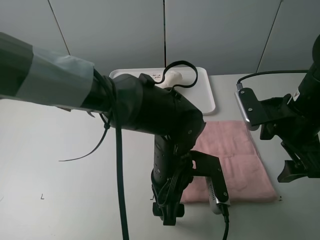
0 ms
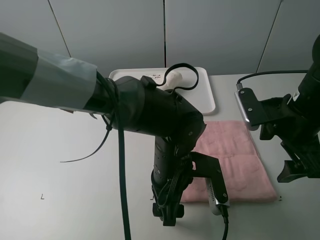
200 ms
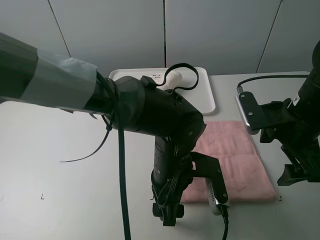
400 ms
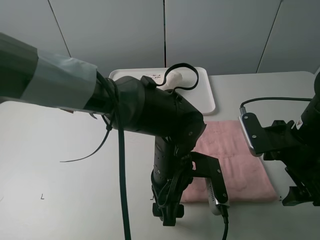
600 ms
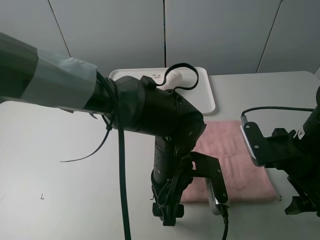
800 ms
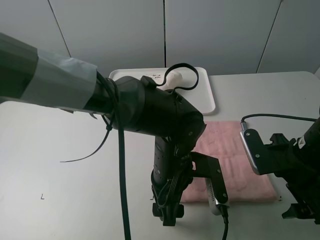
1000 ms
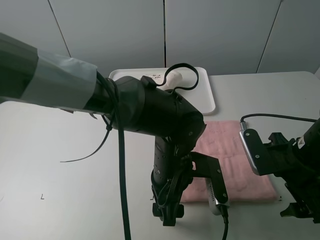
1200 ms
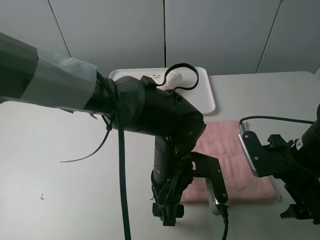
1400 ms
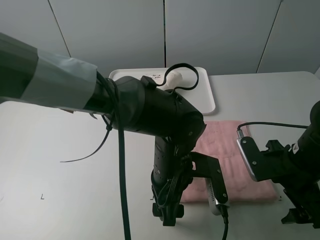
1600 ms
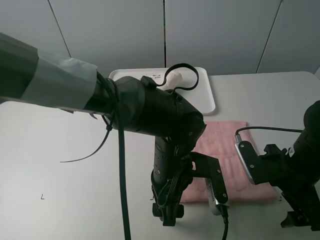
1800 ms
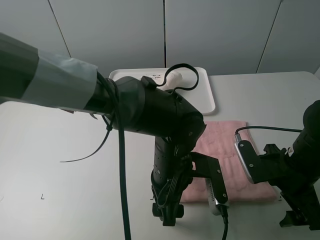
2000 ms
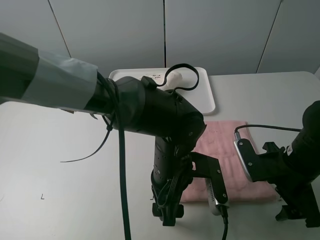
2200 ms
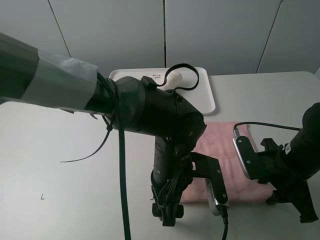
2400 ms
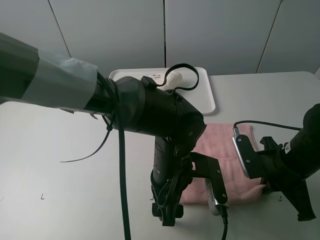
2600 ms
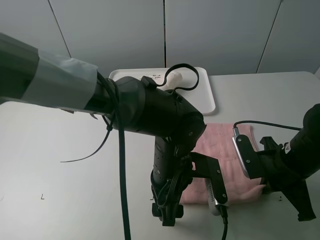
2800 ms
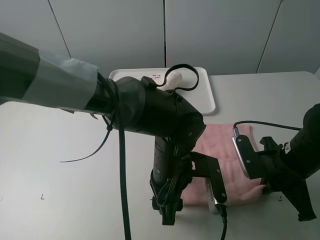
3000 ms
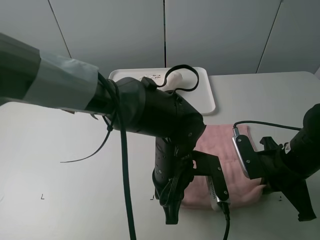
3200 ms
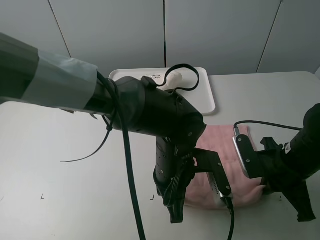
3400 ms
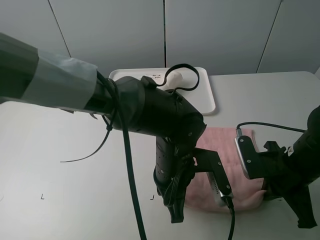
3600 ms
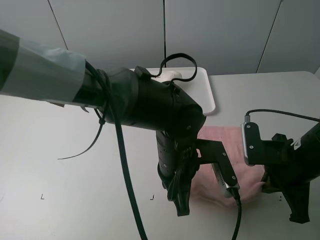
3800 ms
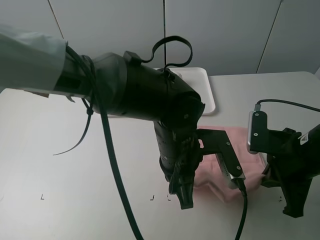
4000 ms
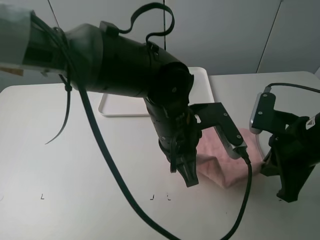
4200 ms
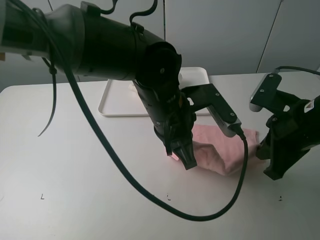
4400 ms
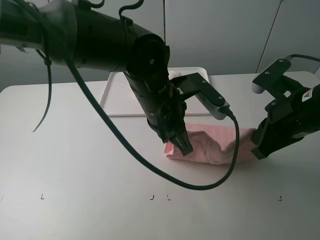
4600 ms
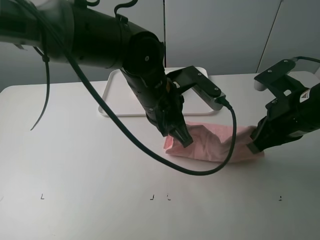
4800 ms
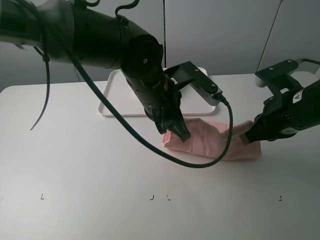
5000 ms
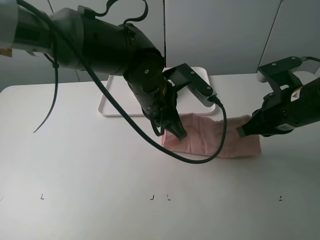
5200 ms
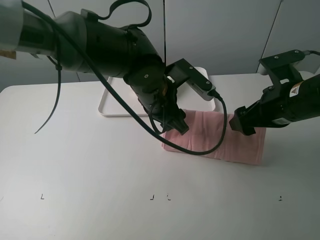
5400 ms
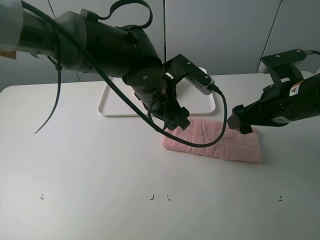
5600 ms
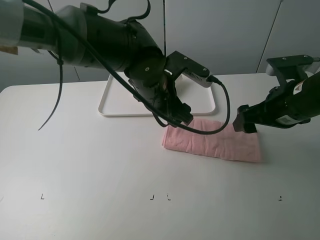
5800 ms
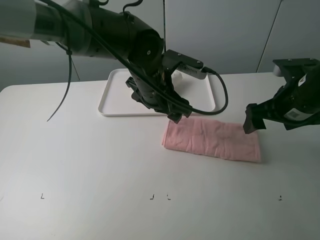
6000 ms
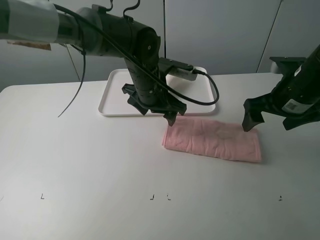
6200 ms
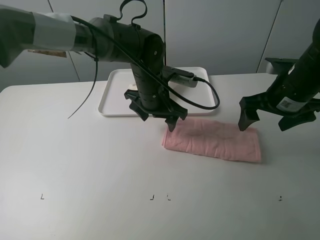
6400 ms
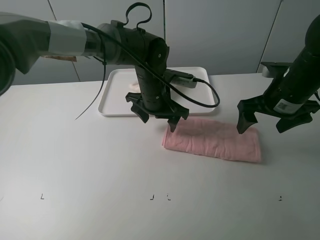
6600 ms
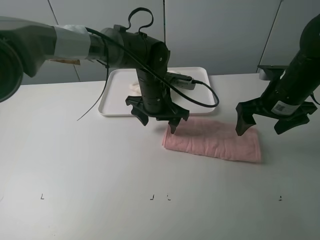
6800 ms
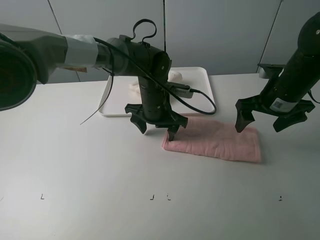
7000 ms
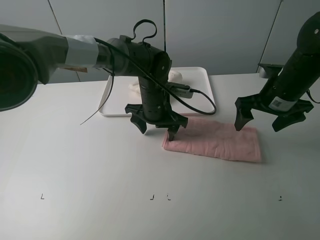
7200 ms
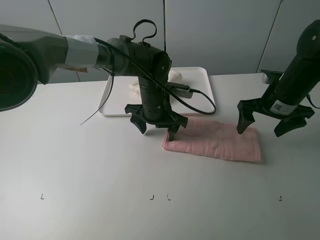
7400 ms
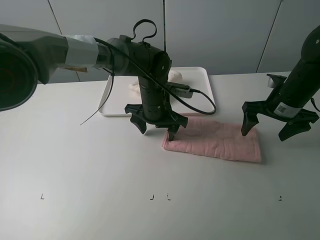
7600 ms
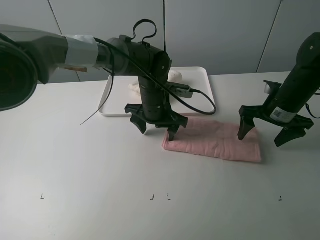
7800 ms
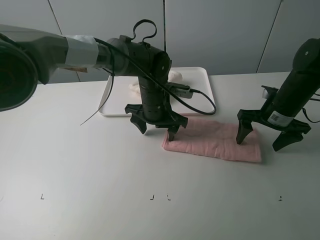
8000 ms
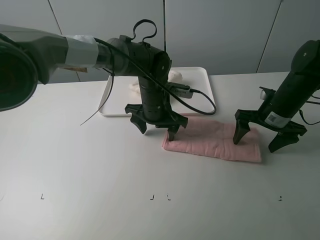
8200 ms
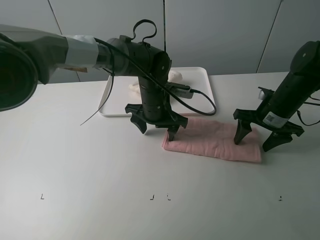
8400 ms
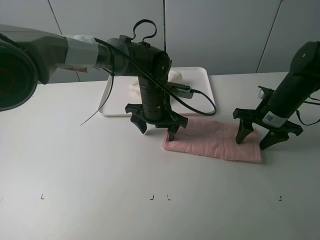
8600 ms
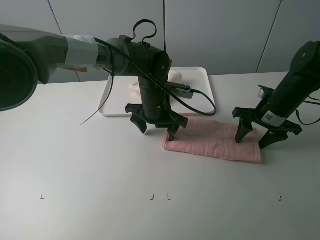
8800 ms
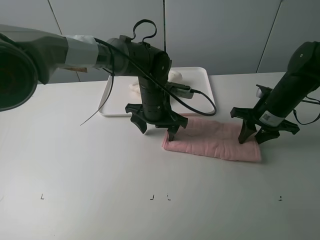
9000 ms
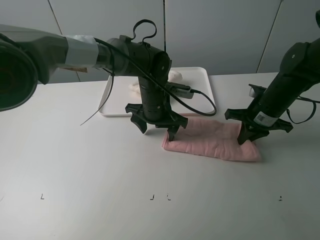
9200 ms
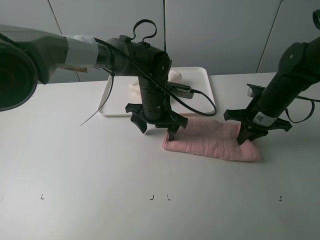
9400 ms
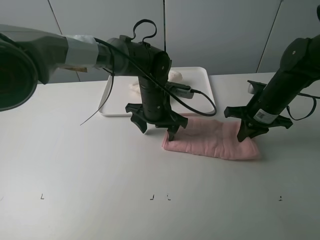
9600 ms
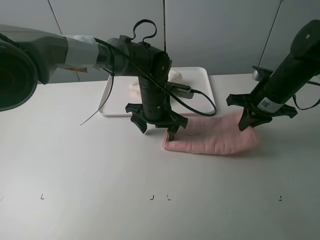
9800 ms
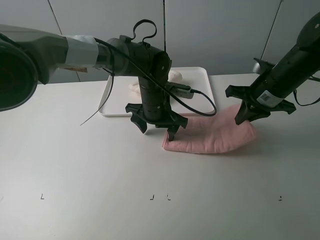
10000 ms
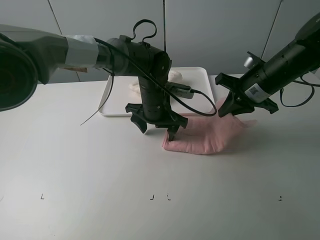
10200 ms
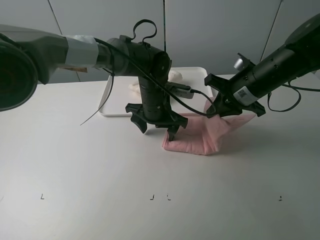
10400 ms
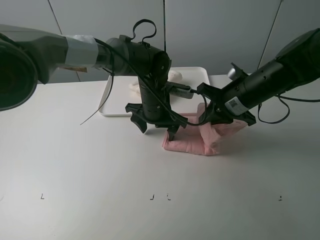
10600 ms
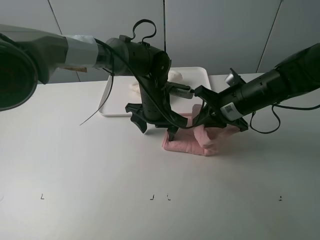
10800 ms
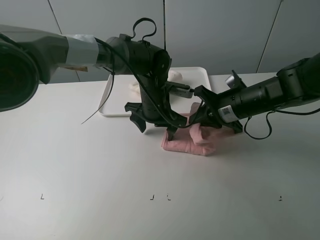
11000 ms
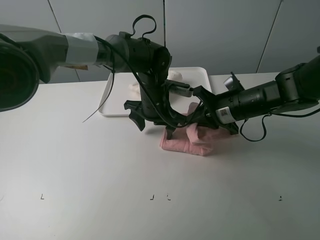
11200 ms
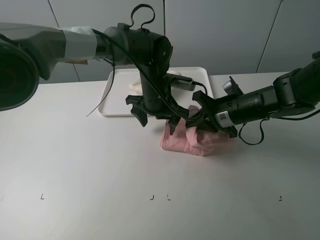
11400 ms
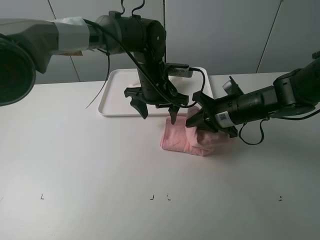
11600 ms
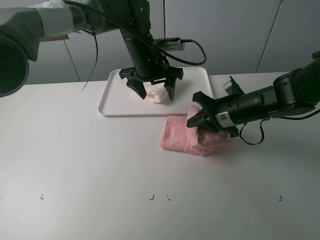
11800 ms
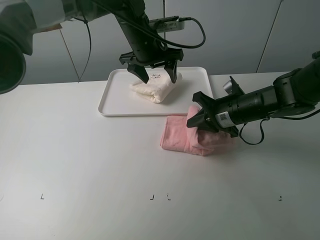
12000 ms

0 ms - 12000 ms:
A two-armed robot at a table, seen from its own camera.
Task of the whole recording: fold one of the towels by two grippers and place it on the tray,then fold another towel by two grippers and place it on the folded towel.
Step, 3200 ms - 5600 ms: Fold the pink towel upwards with the left gripper.
Step, 6000 ms - 7200 ms: Press the pink towel with the left gripper.
Step, 7400 ms - 9200 ms: Grasp the pink towel with the right gripper.
0 ms - 1600 ms: The right gripper travels downward by some 5 cm.
1600 ms - 3000 ms: The left gripper closes up; the right gripper closes.
3000 ms - 4400 ms: Both grippers travel together upward, some 10 cm. The left gripper closes its fingers.
4400 ms - 6000 ms: The two grippers go roughly 5 cm forward. The right gripper opens its fingers. The left gripper opens.
6000 ms - 7600 ms: The left gripper goes approximately 5 cm downward. The right gripper moves forward, approximately 5 cm.
7600 ms - 9000 ms: The right gripper closes.
9000 ms - 10400 ms: The right gripper goes roughly 10 cm to the left and upward.
10400 ms - 12000 ms: The right gripper goes some 5 cm downward, while the left gripper heads upward and forward, covering about 15 cm.

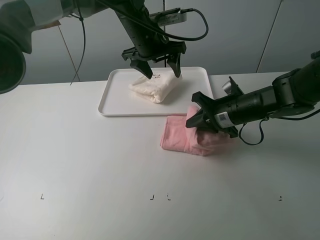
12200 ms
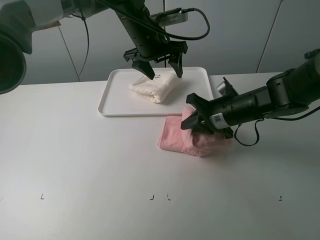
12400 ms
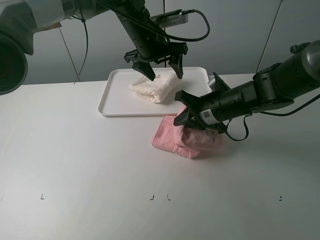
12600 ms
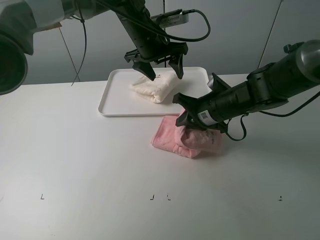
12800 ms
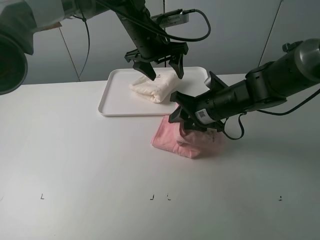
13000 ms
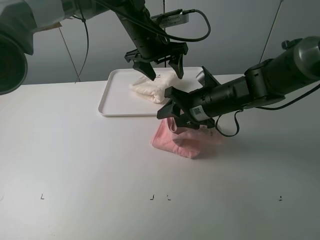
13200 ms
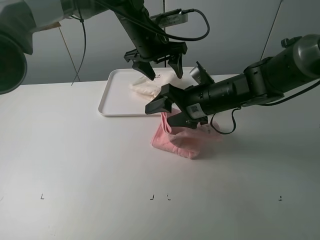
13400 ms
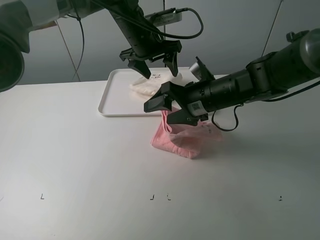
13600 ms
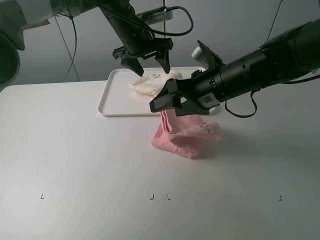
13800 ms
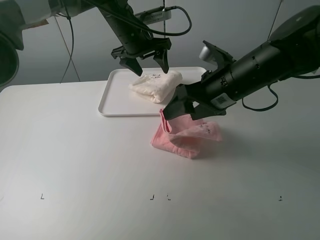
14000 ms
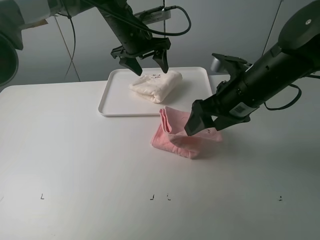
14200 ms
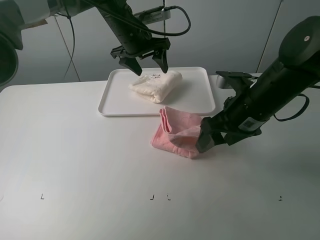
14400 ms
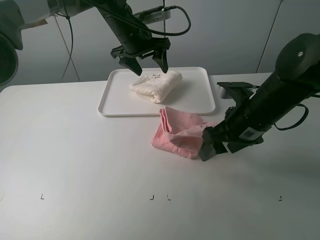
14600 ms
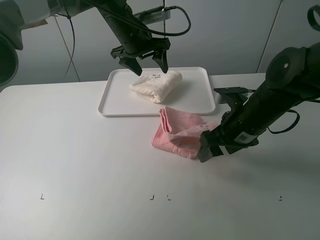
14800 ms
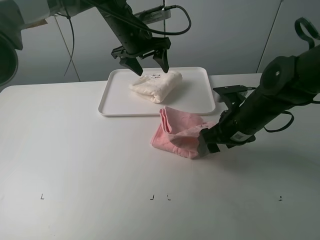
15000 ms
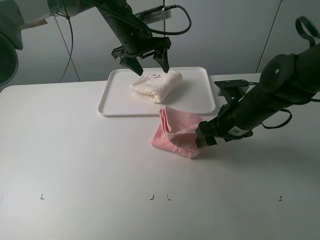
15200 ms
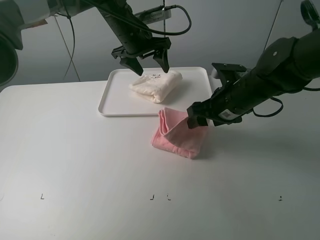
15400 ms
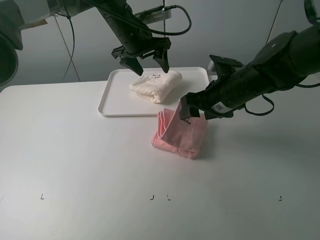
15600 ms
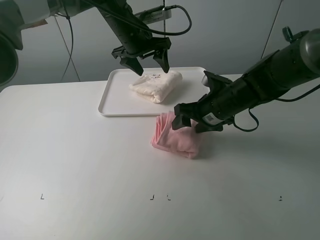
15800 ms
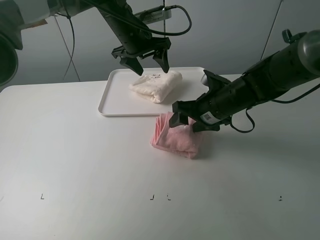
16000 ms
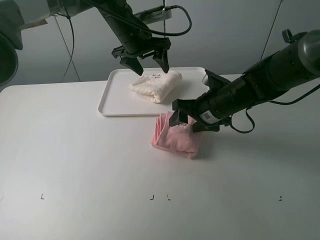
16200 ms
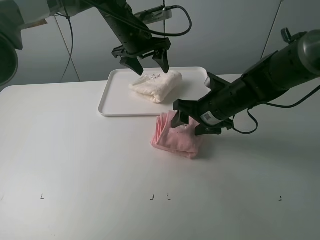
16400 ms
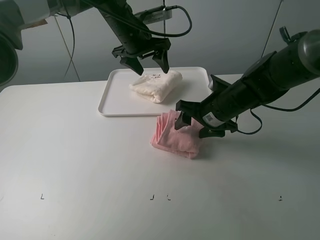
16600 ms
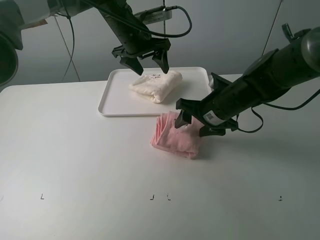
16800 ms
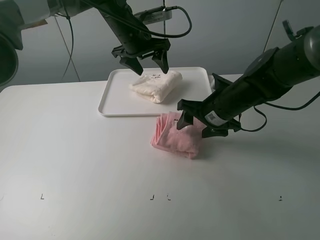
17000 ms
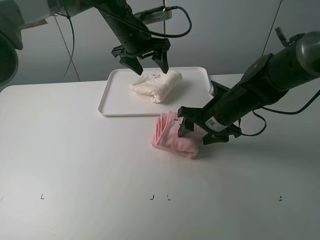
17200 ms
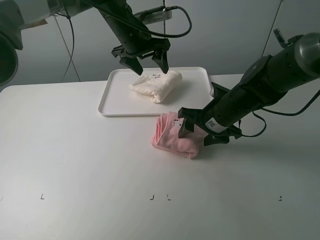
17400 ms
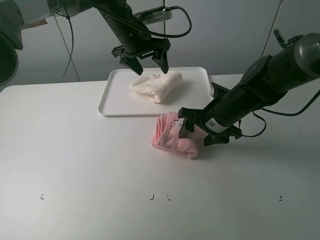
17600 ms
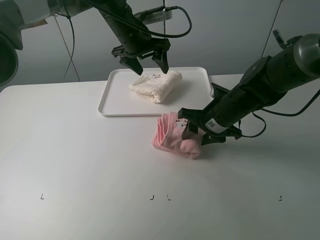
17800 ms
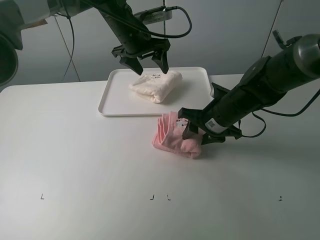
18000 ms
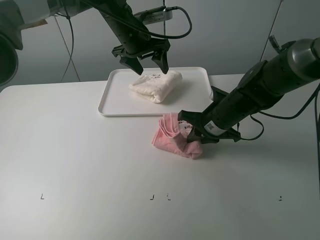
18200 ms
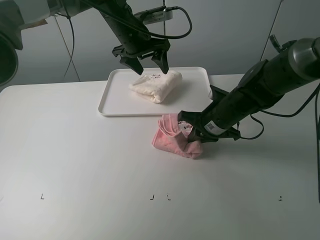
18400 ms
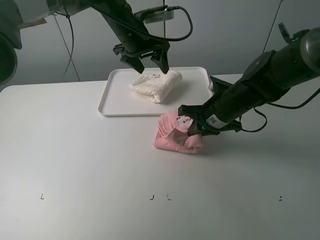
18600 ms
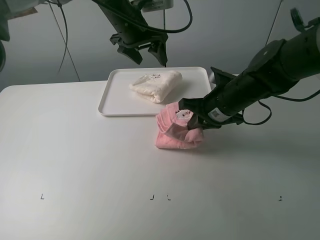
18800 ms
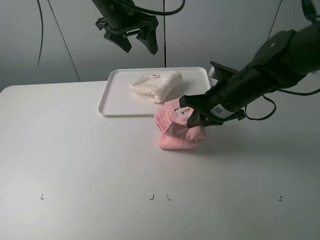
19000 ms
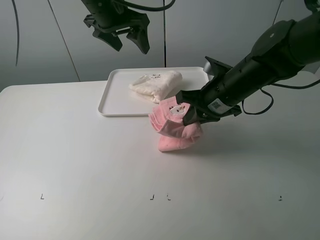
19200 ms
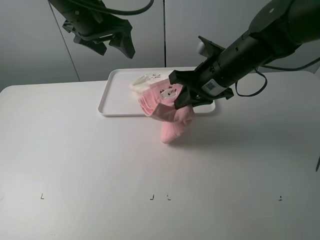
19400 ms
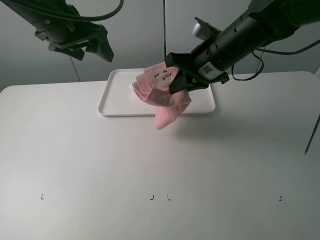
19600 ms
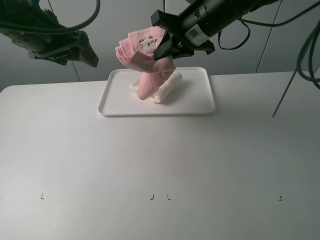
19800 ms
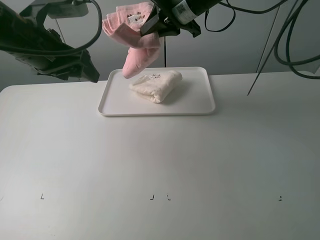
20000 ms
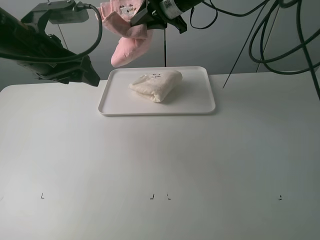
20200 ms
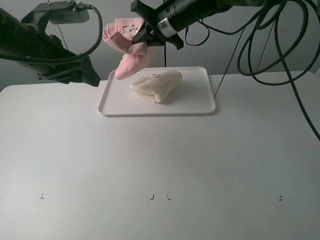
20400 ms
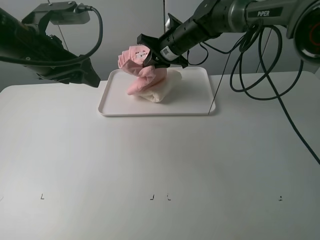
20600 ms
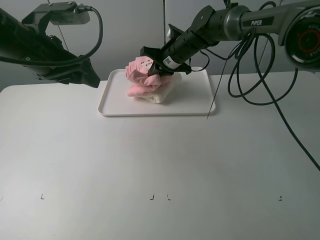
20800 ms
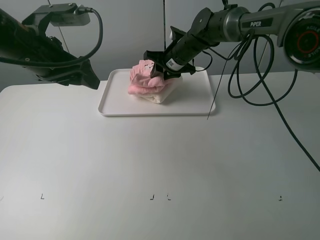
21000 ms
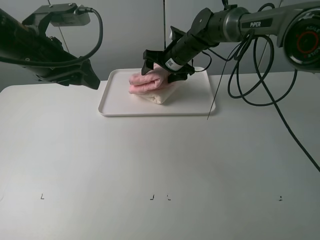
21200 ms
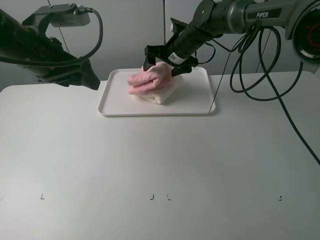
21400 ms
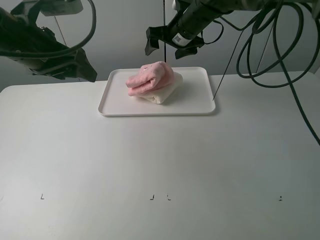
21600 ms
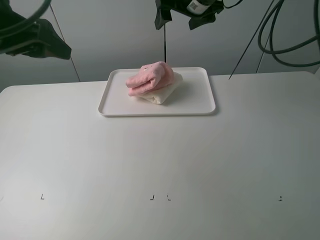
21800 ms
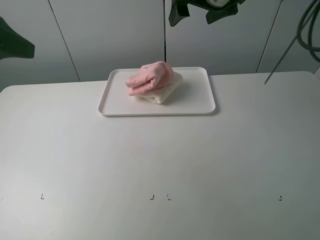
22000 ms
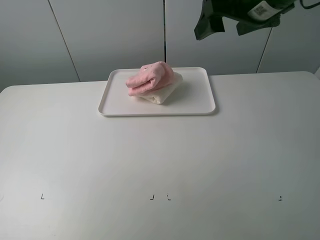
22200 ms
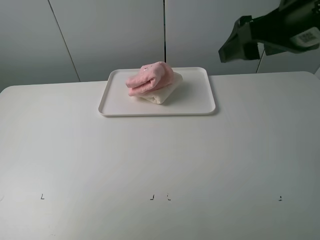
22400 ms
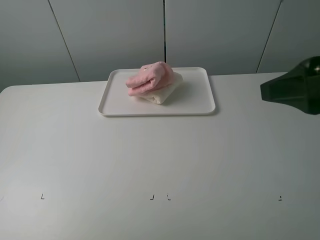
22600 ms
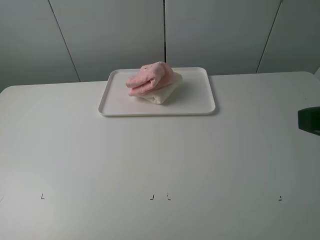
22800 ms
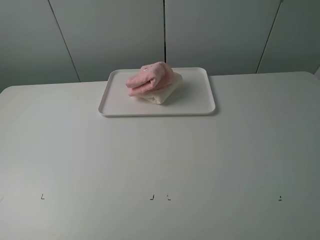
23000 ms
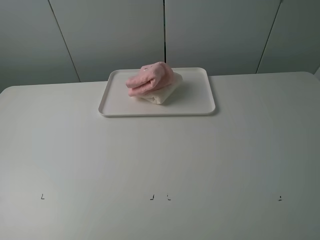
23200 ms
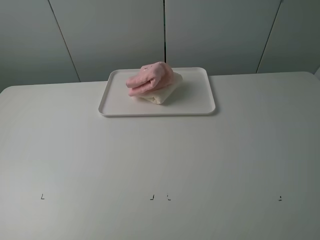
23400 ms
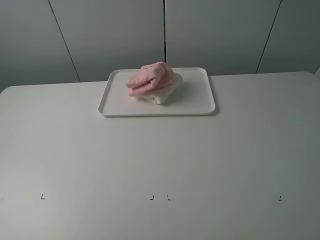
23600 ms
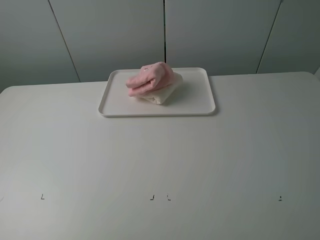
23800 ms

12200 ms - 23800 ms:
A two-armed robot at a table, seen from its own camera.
Task of the whole recording: fold one of the towels by two grippers and place it on the tray,then fold another towel by two grippers and place it on the folded towel.
Step, 12200 ms - 14600 ms: Fold the pink towel from right to left with right gripper.
Step, 14800 ms - 18200 ms: Grasp the pink towel with the right gripper.
Step, 18400 ms - 21400 ms: Place the pink towel on the white towel with the right gripper.
12200 ms - 13600 ms: The right gripper shifts roughly 5 cm to the left, and opens up.
13600 ms - 15000 ms: The right gripper moves to the right, approximately 5 cm.
15000 ms - 16600 ms: The right gripper moves roughly 5 cm.
16600 ms - 18000 ms: The grippers make only small movements.
18000 ms - 19400 ms: The right gripper goes roughly 10 cm upward, and closes up; the left gripper shifts approximately 15 cm backward, to the left and upward.
19400 ms - 21000 ms: The left gripper moves backward and to the left, roughly 10 cm; the right gripper moves forward, roughly 15 cm, and opens its fingers.
21000 ms - 22400 ms: The right gripper heads backward, upward and to the right, covering roughly 35 cm, and opens up; the left gripper shifts approximately 25 cm backward and to the left.
22400 ms - 23800 ms: The left gripper heads backward, covering some 10 cm; the right gripper shifts roughly 25 cm backward and to the right.
